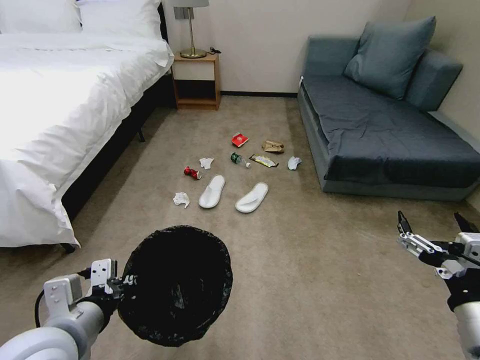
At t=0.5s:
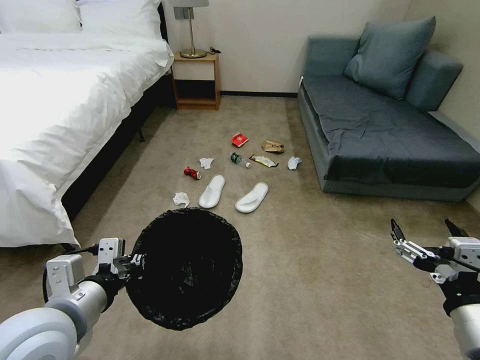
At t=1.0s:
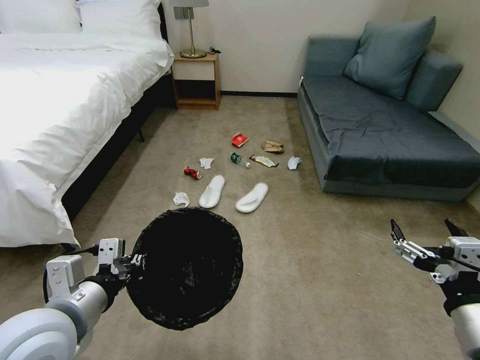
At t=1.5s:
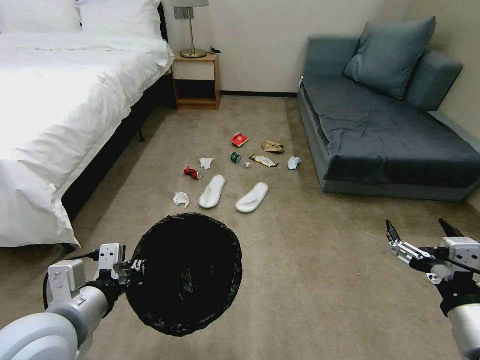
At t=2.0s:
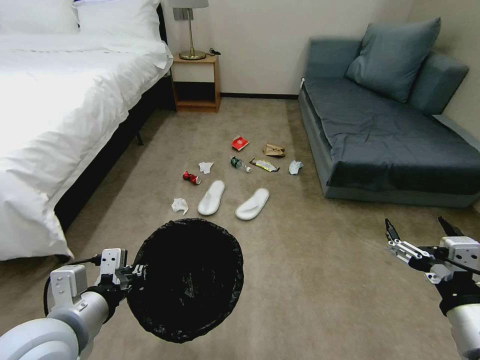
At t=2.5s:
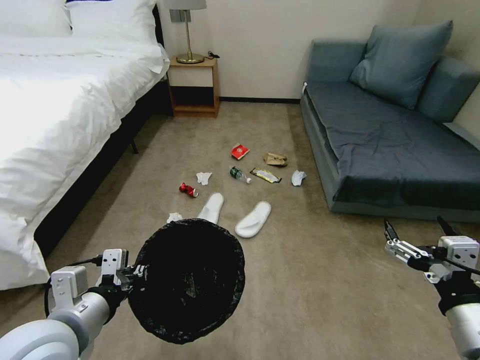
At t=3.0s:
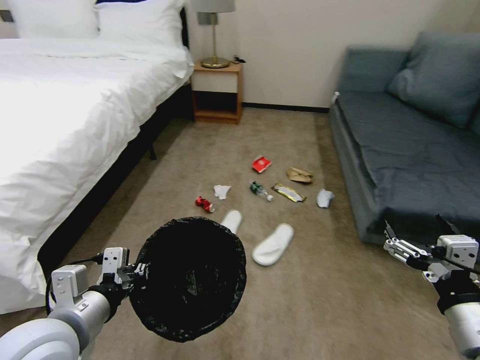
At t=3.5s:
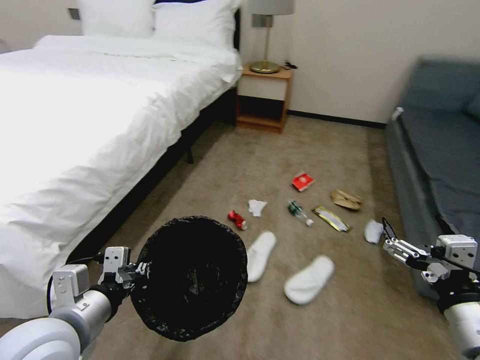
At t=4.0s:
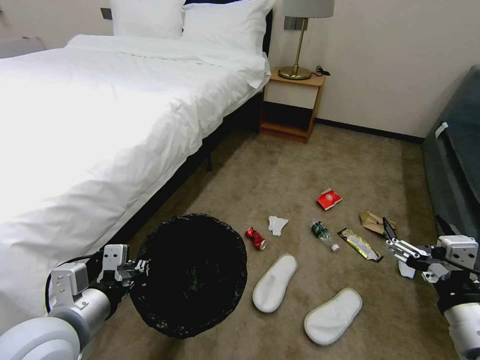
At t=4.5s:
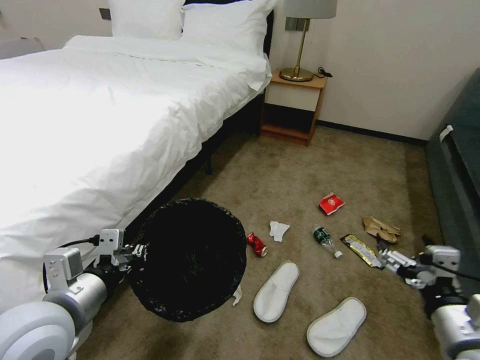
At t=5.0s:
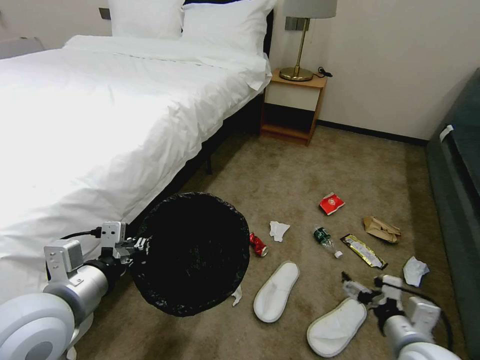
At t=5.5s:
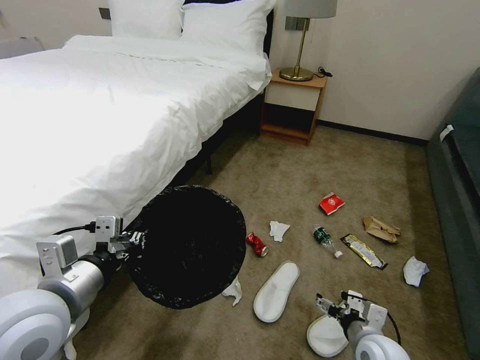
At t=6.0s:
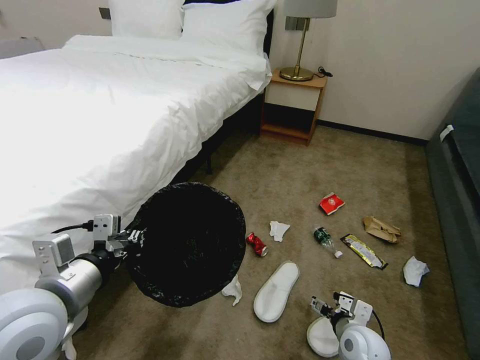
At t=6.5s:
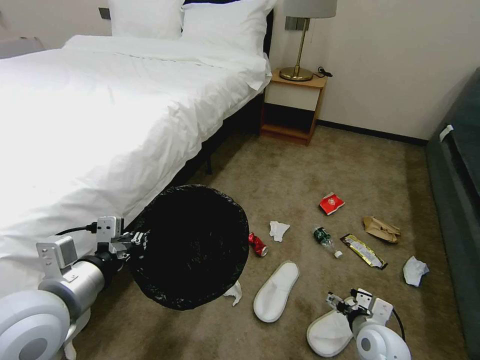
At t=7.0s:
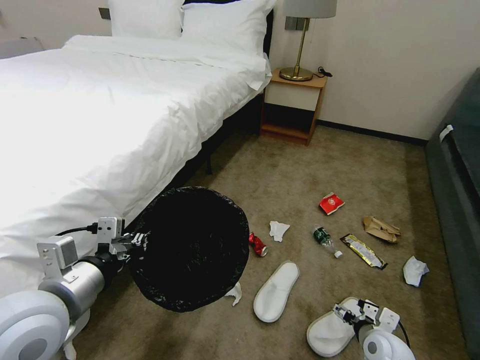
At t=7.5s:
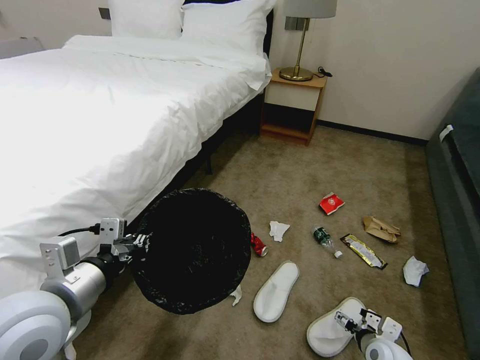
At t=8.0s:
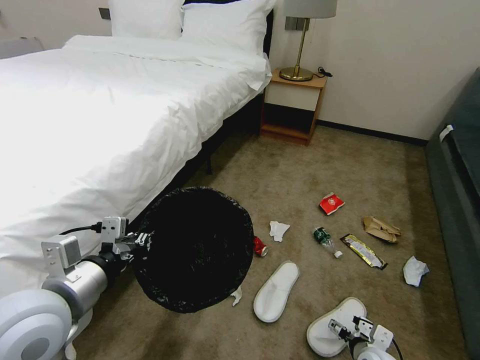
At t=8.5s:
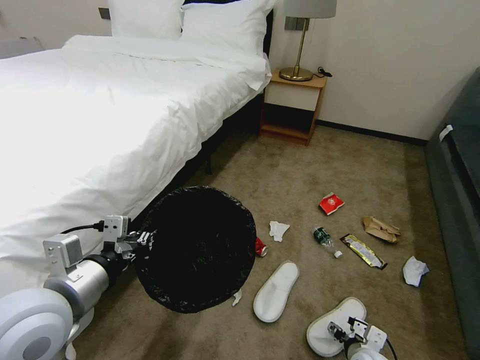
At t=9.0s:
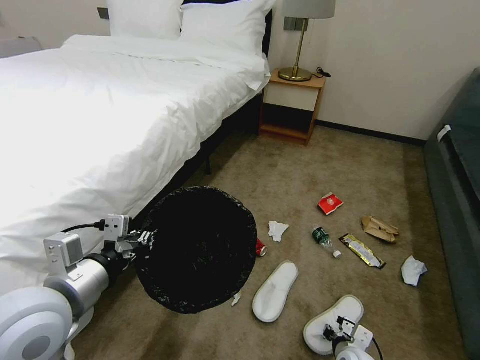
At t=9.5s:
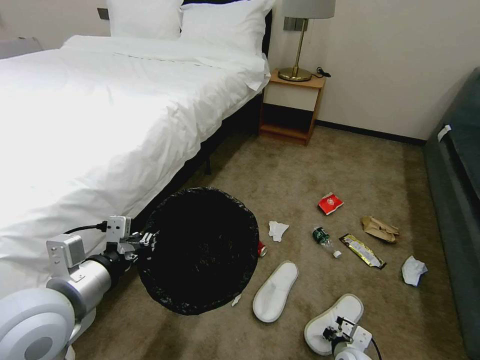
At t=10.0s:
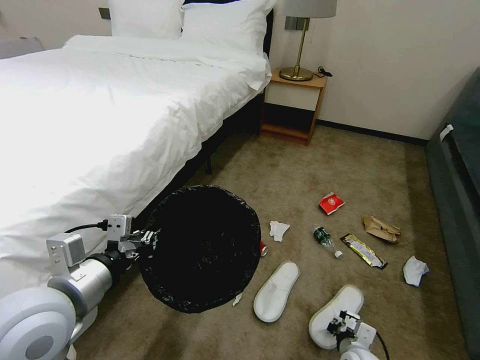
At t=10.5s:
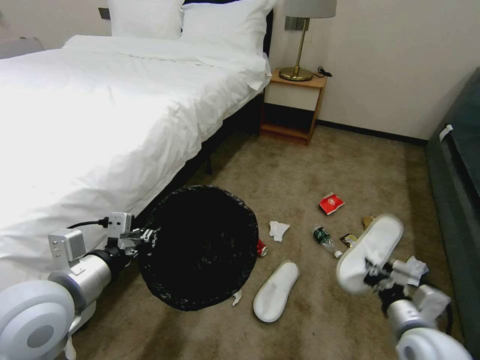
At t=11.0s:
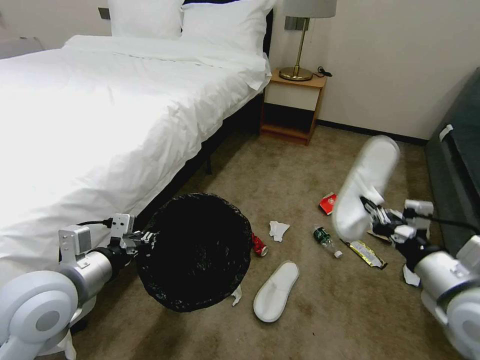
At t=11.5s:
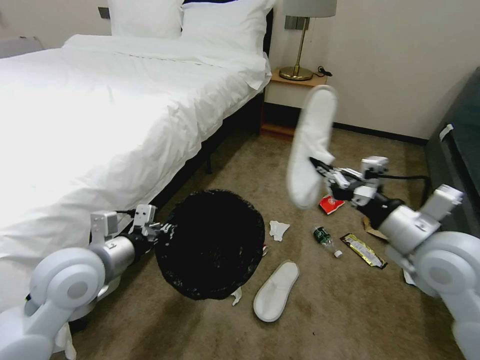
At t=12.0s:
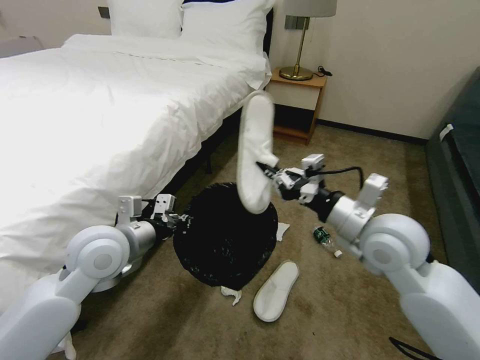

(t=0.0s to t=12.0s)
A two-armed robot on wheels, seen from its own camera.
Task of the whole recording: Pick up the trash bin, then pick up the garbage on the floor and place it into the trash bin.
t=4.0s - t=6.0s: The right gripper moves downward, roughly 25 cm.
t=6.0s - t=8.0s: The left gripper closes its fingers. The right gripper shifts by roughly 5 cm.
t=8.0s - t=10.0s: The right gripper closes its fingers.
t=10.0s - t=12.0s: The left gripper shifts about 10 cm forward; the right gripper goes some 35 cm upward.

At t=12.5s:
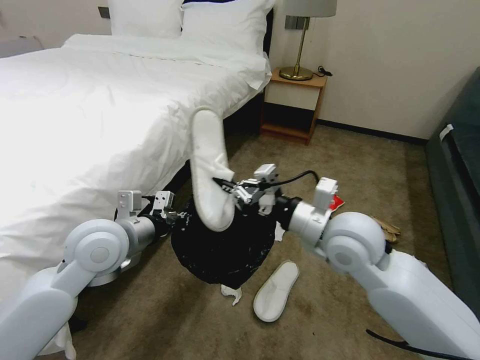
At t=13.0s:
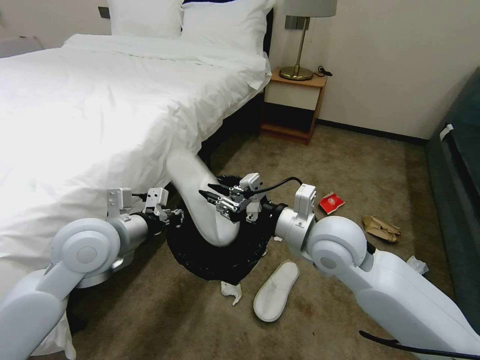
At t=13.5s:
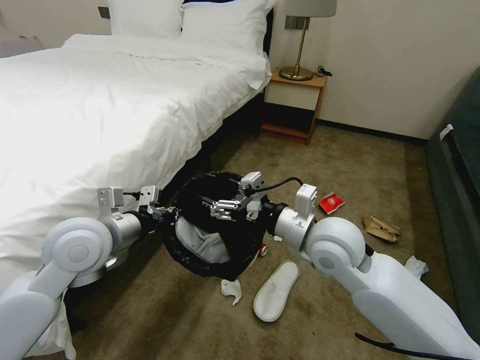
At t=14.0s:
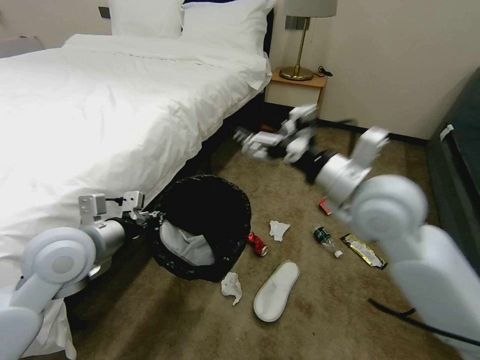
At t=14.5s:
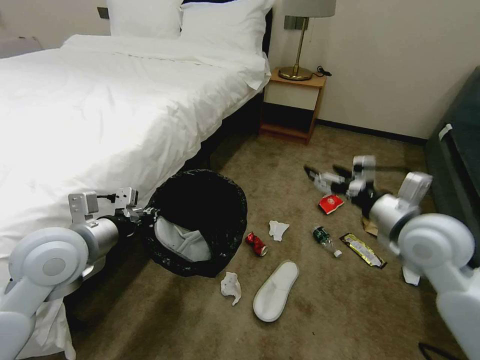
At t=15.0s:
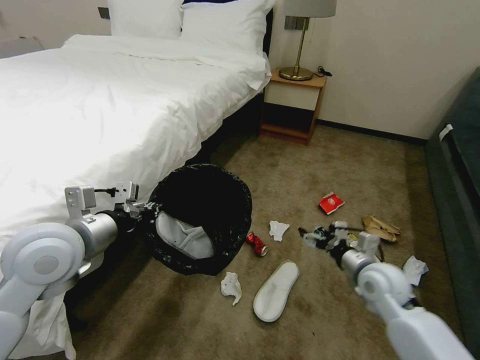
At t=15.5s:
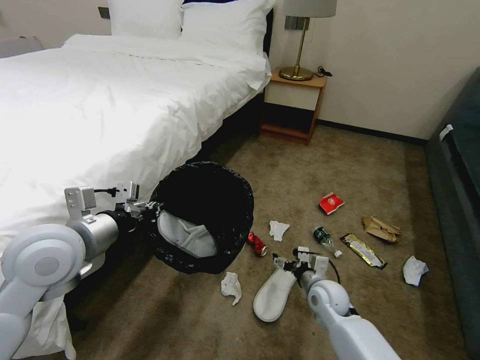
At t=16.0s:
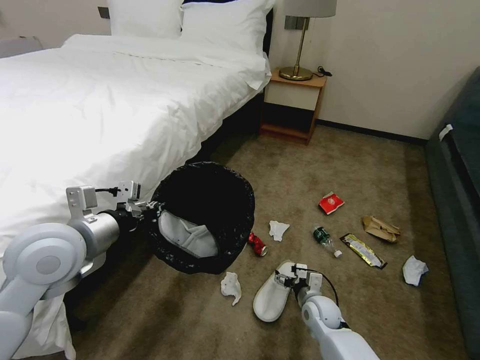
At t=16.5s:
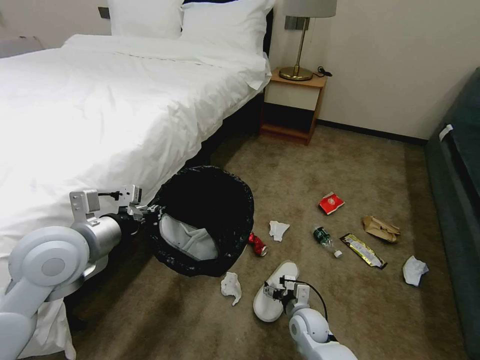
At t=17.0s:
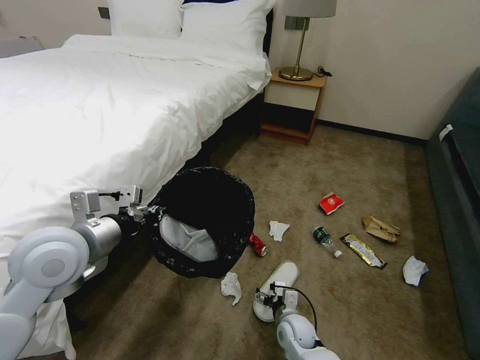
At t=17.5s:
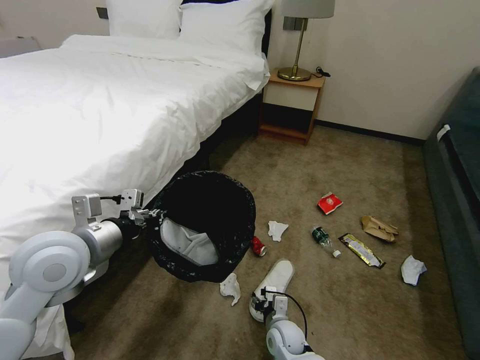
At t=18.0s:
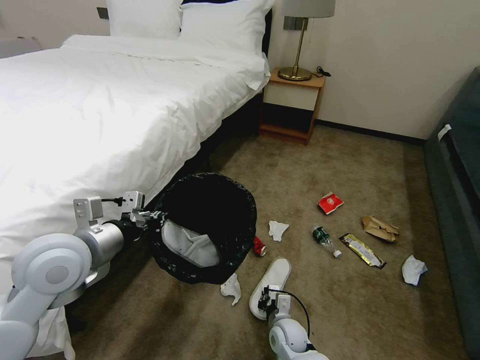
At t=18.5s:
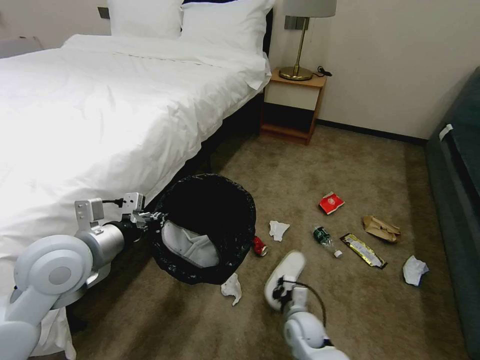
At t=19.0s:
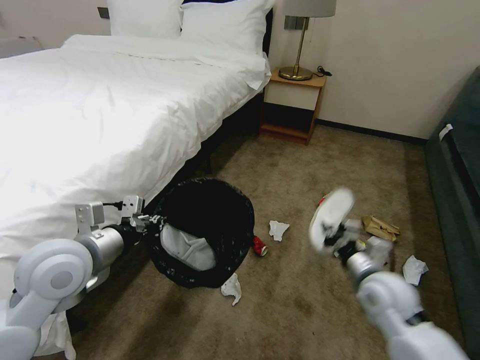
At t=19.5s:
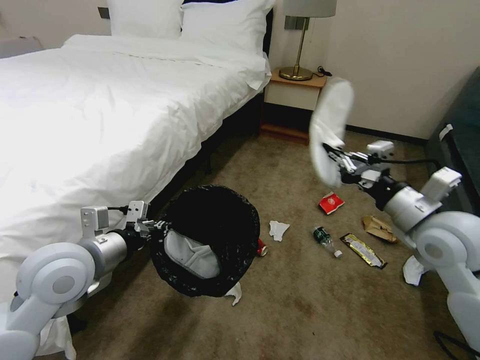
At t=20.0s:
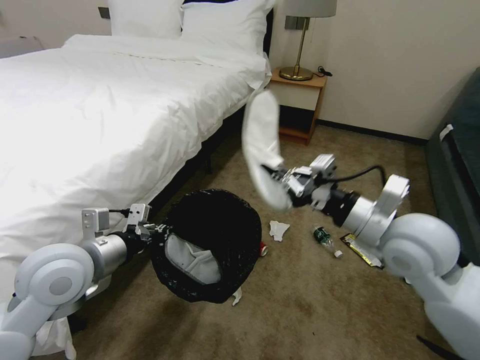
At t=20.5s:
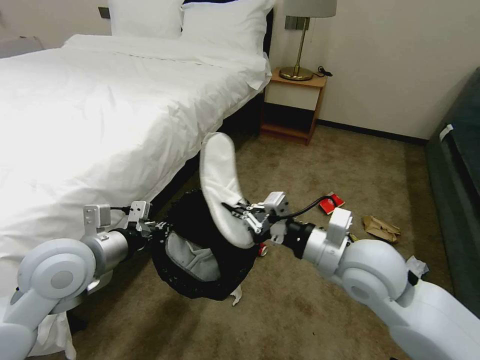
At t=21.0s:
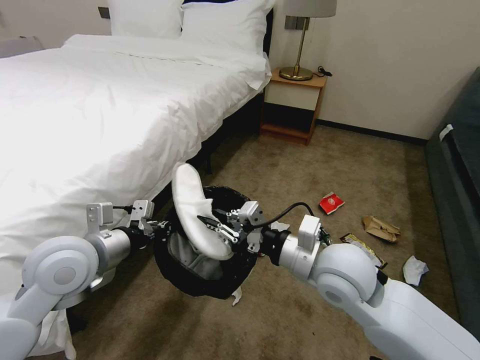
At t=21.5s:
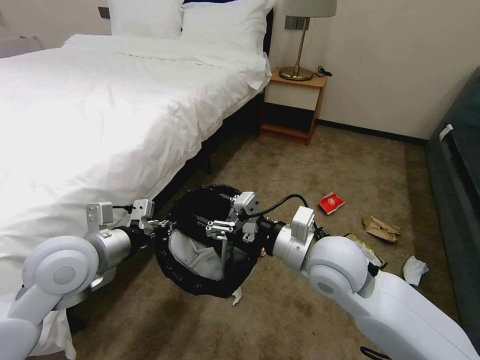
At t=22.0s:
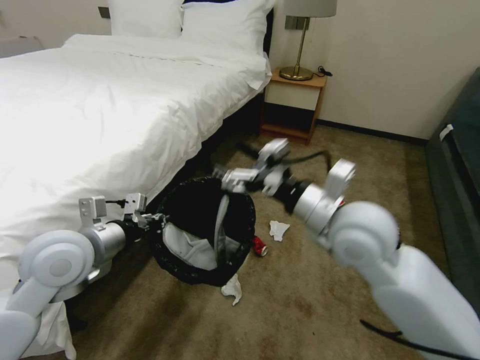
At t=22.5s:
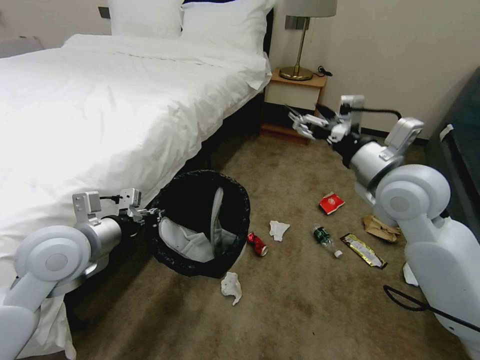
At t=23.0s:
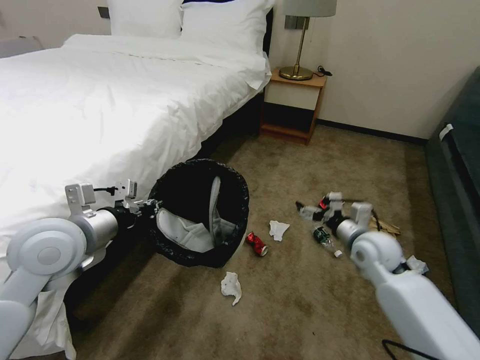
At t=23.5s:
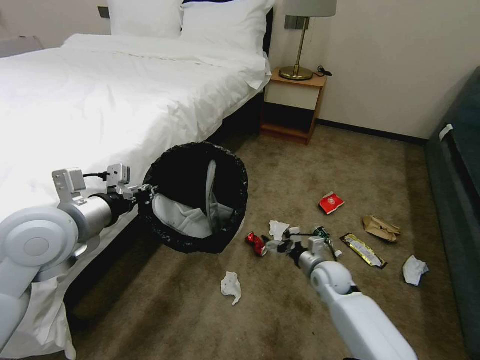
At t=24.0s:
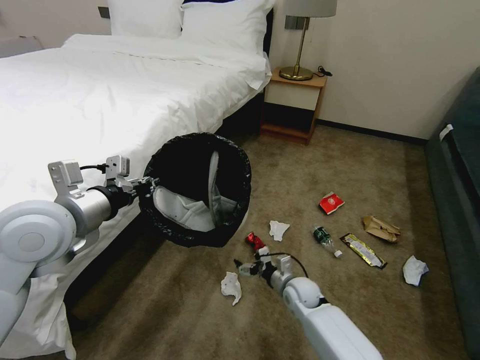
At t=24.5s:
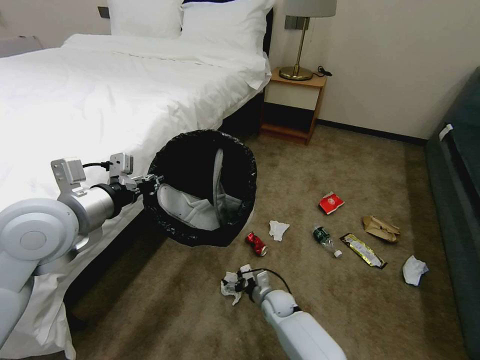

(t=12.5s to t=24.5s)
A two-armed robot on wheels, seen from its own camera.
Task of the whole recording: Pick up the trash bin, then pick up the garbage on the floor and place it into the trash bin.
t=12.5s - t=14.5s: The left gripper heads to the left, covering some 5 cm; the right gripper moves to the right, some 15 cm, and opens.
t=14.5s - t=16.5s: The right gripper travels downward by approximately 35 cm.
t=16.5s - t=18.5s: The right gripper closes up.
t=18.5s - t=20.5s: The right gripper travels upward by about 35 cm.
t=20.5s - t=22.5s: The right gripper travels forward, upward and to the right by about 15 cm, and opens up.
t=22.5s - t=24.5s: The right gripper goes approximately 50 cm downward. Meanwhile the left gripper travels upward by about 5 cm.

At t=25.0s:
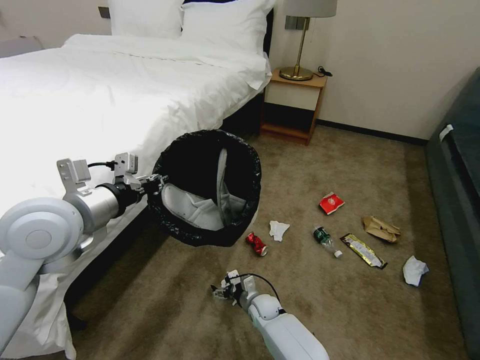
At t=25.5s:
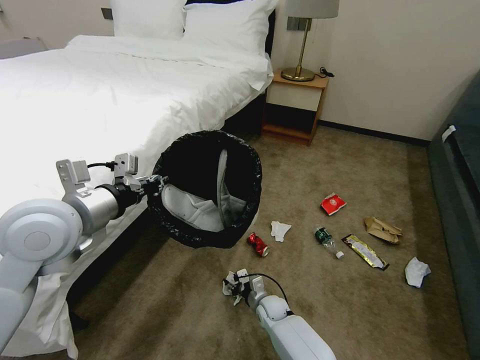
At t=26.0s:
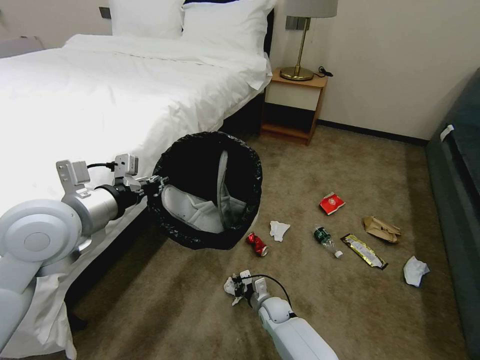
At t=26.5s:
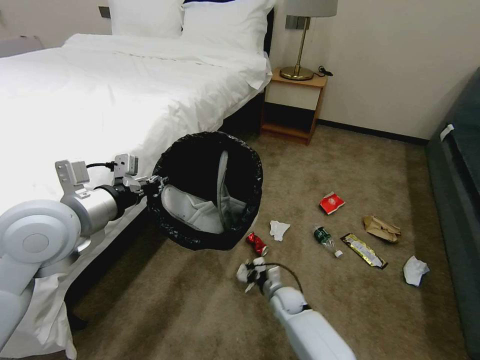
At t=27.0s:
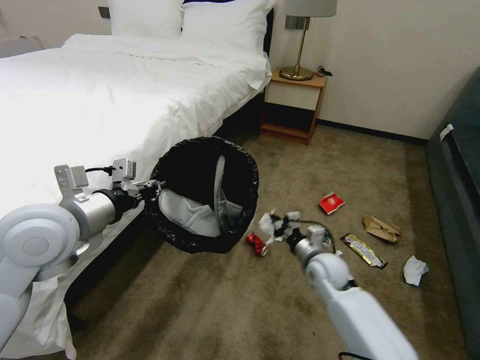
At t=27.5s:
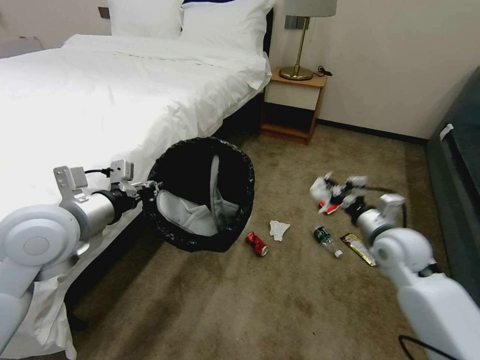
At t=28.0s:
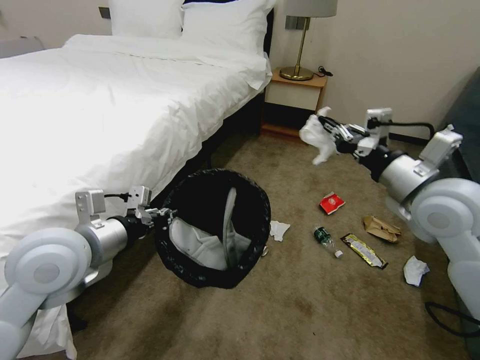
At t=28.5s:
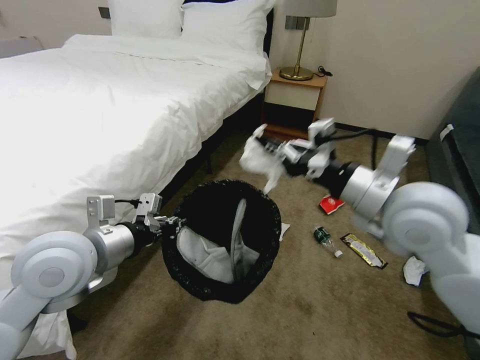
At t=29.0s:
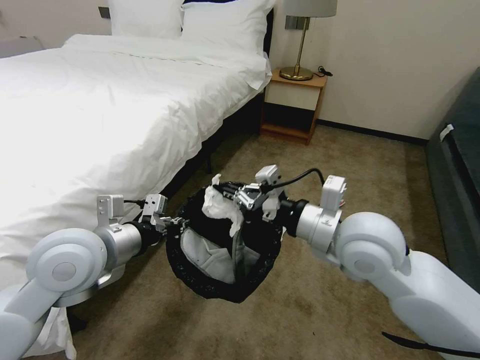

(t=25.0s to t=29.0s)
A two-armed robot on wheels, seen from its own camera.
Task of the whole recording: Pick up the trash bin, then pick up the garbage on the floor and place it into the trash bin.
t=25.0s - t=27.0s: The right gripper goes roughly 25 cm upward and to the right, and closes up.
t=27.0s - t=29.0s: The right gripper moves upward, roughly 25 cm, while the left gripper ends up some 5 cm from where it was.
